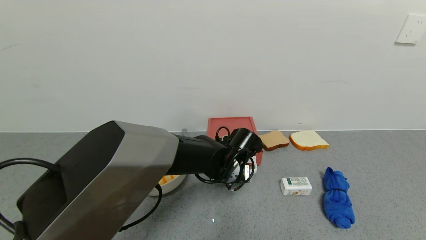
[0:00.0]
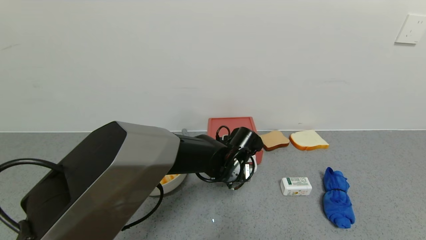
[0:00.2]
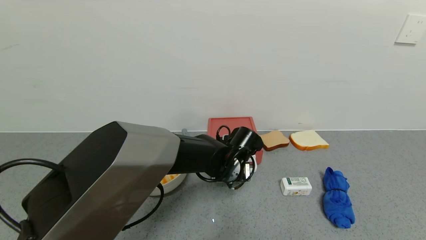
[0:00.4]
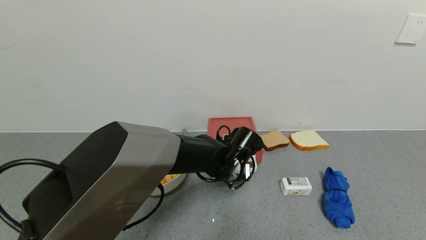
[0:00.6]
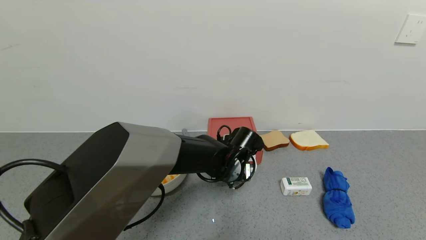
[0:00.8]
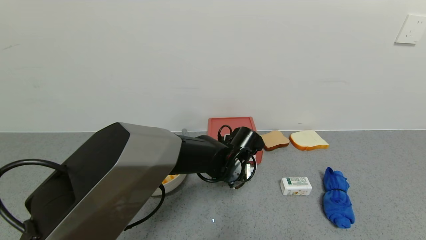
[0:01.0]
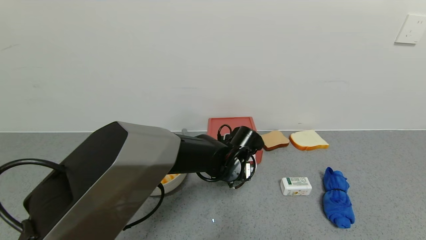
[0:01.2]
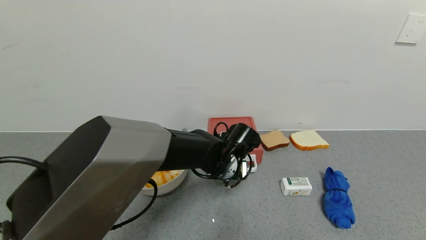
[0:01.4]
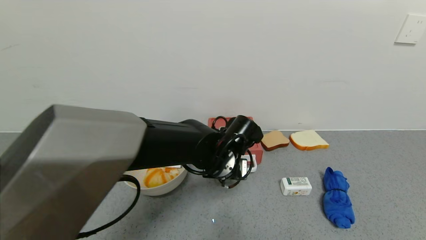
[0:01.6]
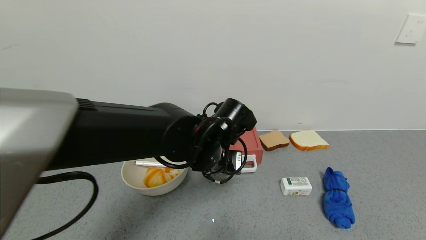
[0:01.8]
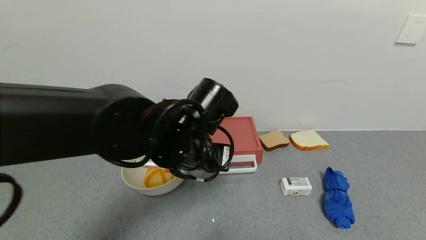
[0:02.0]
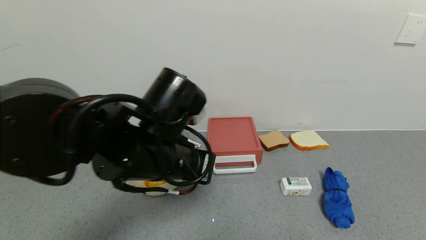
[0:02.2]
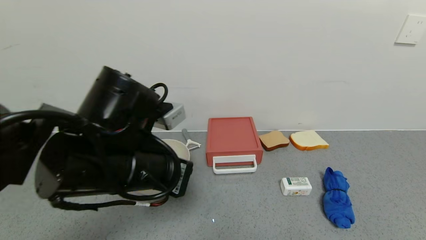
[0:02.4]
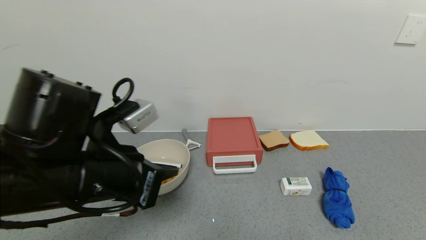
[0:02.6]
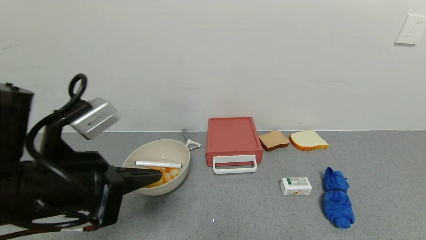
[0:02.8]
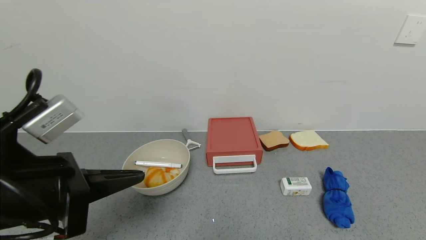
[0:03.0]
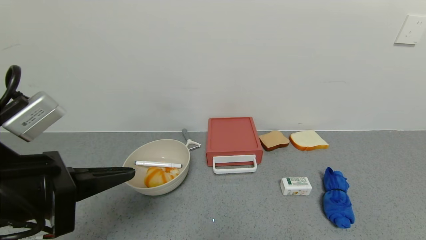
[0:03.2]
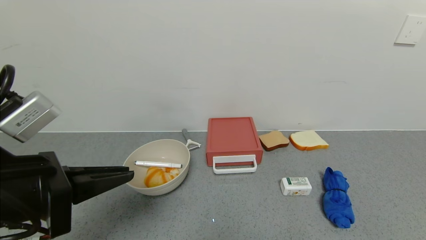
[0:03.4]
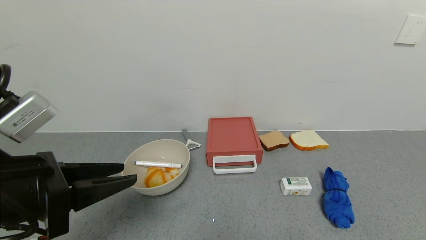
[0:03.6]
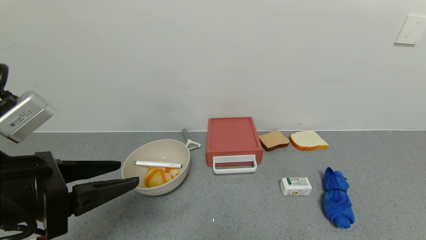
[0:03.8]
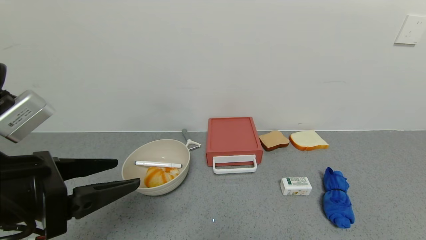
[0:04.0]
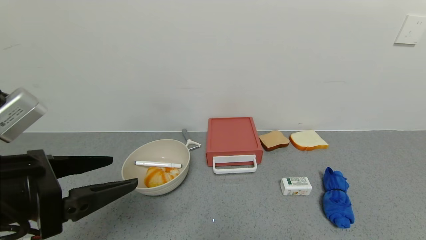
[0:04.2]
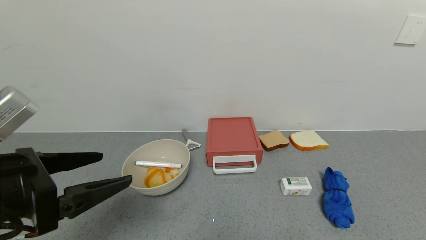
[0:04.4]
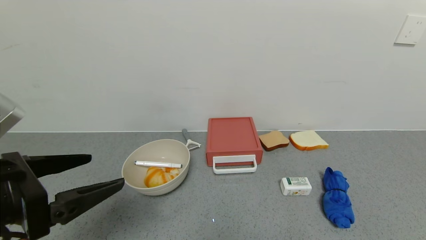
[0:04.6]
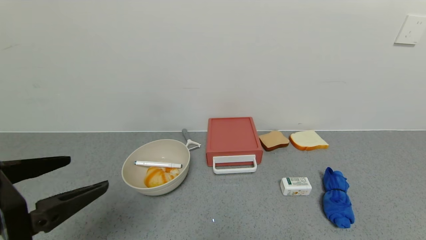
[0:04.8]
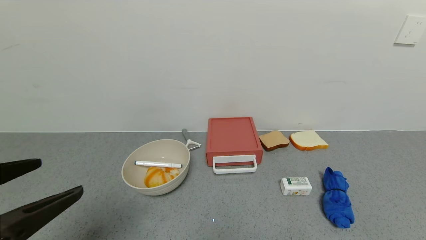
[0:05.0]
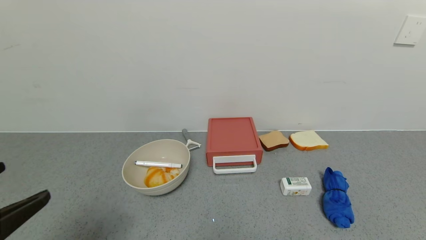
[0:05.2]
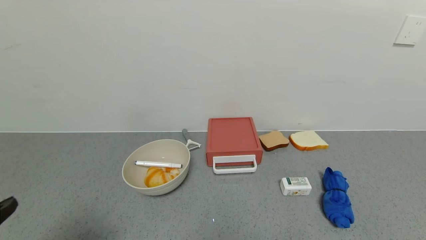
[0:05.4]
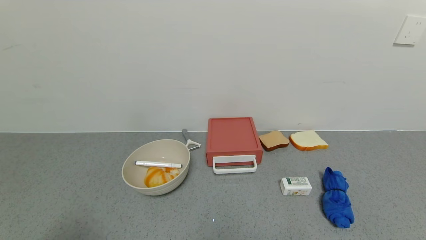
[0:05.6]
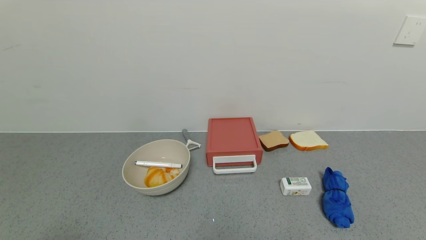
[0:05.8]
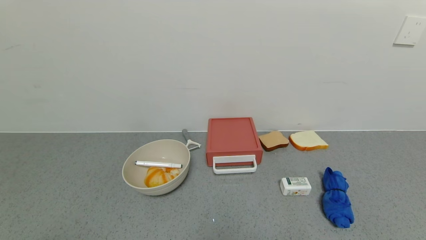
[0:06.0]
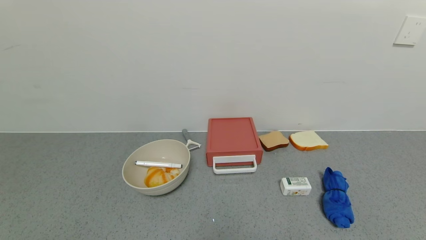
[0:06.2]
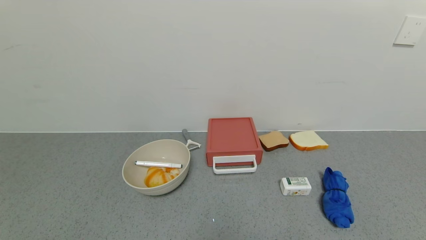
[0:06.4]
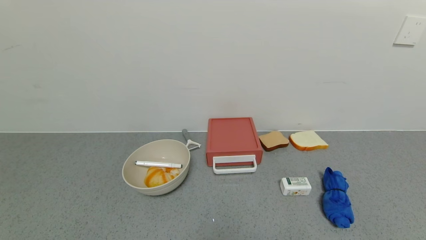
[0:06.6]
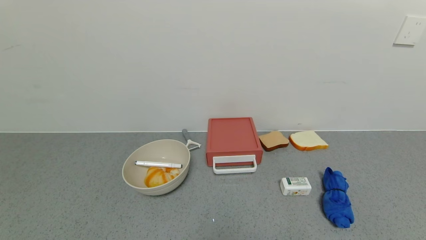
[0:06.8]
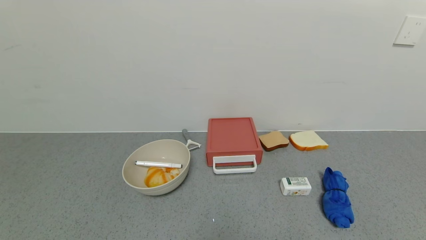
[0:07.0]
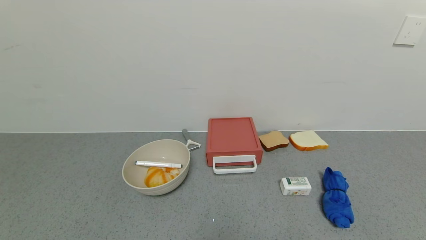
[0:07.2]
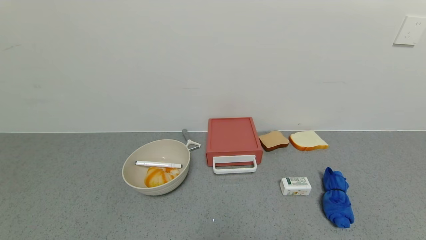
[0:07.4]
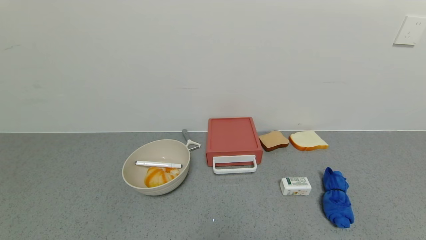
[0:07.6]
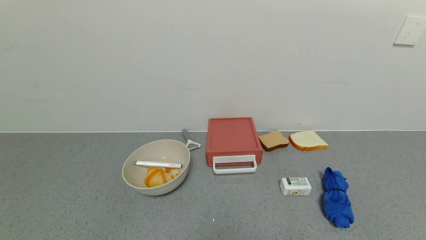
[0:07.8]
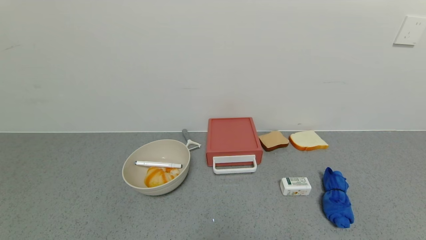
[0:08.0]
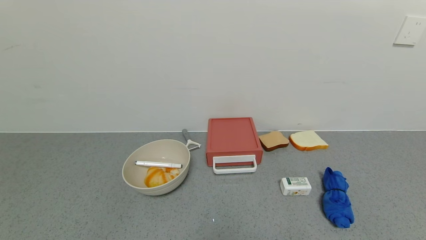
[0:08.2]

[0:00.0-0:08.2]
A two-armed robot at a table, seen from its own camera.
Task of the whole recording: use the gripper to open the drawer and close the red drawer.
Step, 0:00.0 to 0:02.0: Close the red drawer with left gripper.
0:00.0 to 0:01.6: The left gripper ends up approximately 5 cm from where it was.
0:01.6 to 0:03.2: The left gripper shifts roughly 30 cm to the left, backward and upward.
0:03.2 to 0:05.0: The left gripper heads backward, covering some 5 cm, and opens up.
0:05.0 to 0:06.6: The left gripper shifts about 15 cm backward.

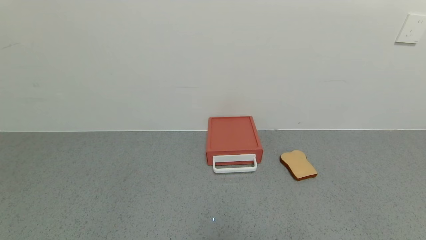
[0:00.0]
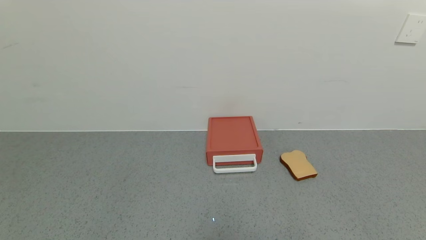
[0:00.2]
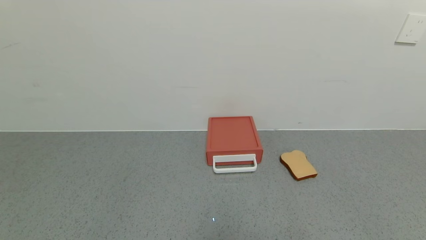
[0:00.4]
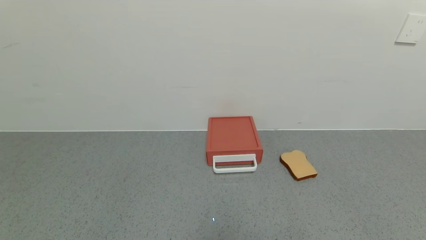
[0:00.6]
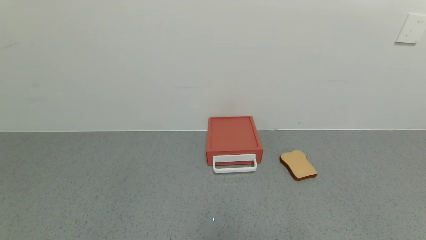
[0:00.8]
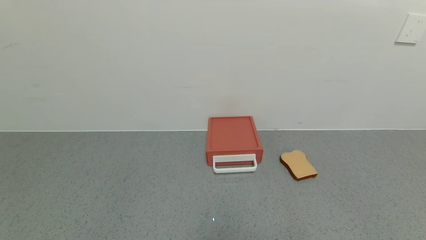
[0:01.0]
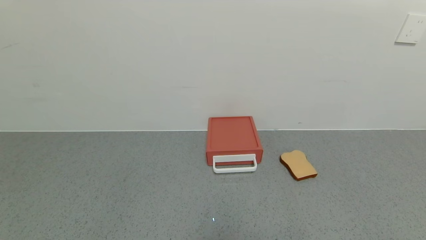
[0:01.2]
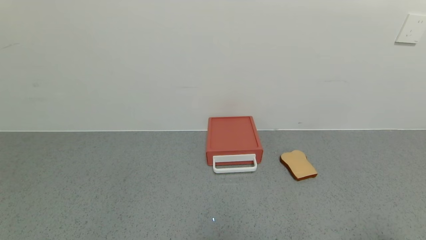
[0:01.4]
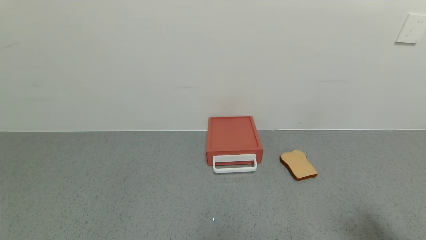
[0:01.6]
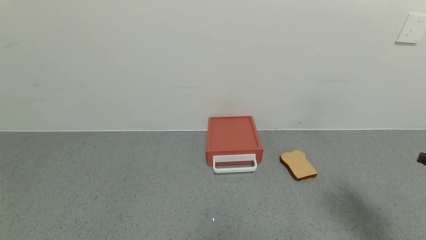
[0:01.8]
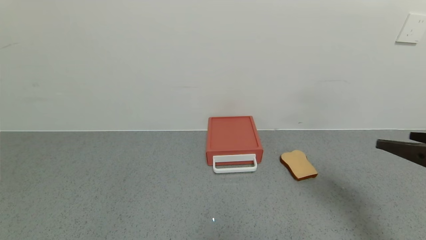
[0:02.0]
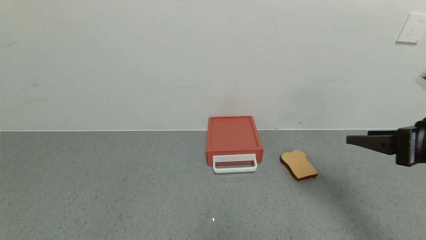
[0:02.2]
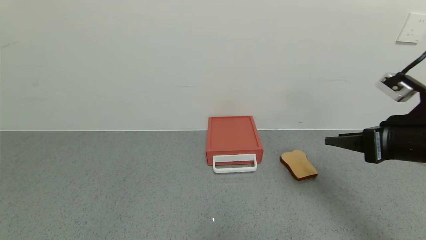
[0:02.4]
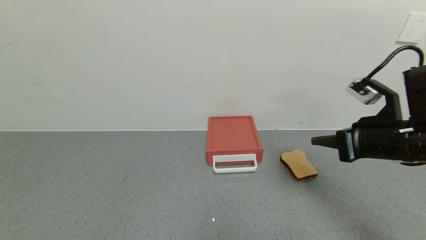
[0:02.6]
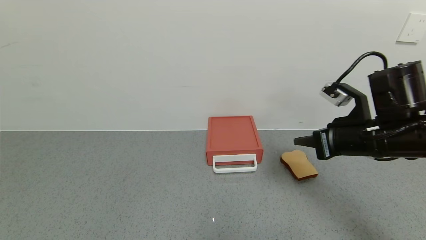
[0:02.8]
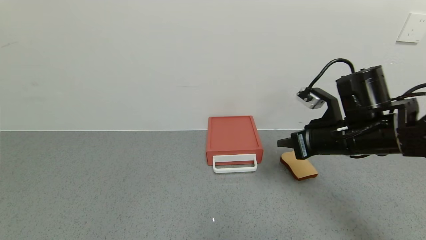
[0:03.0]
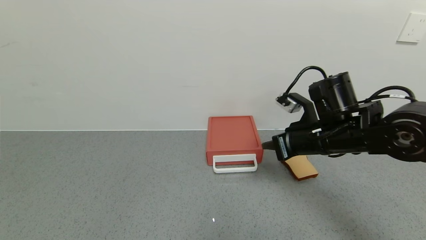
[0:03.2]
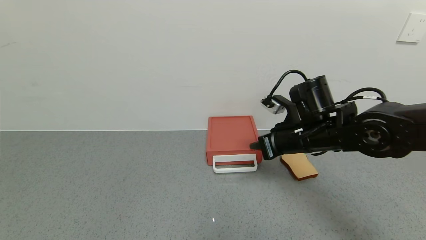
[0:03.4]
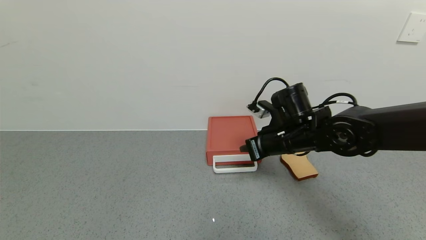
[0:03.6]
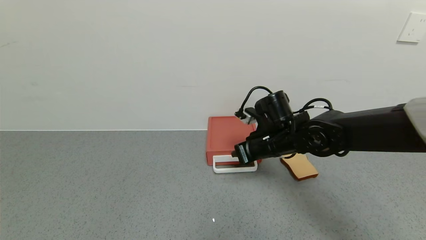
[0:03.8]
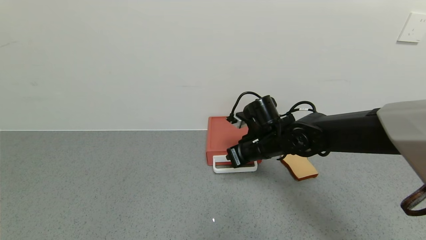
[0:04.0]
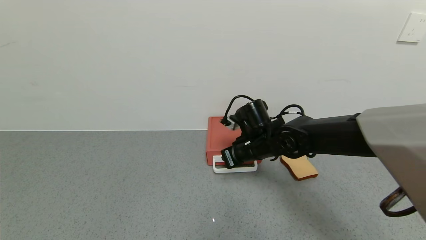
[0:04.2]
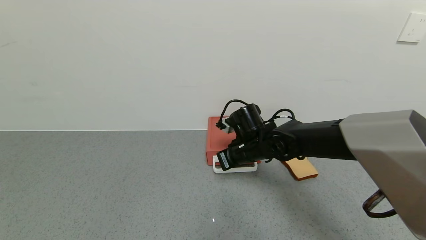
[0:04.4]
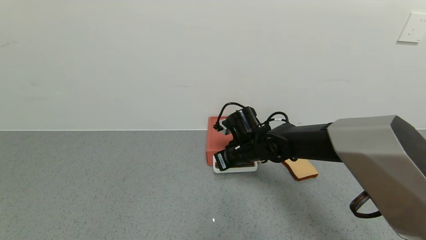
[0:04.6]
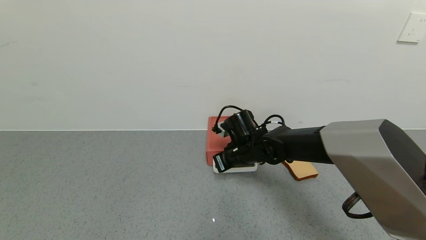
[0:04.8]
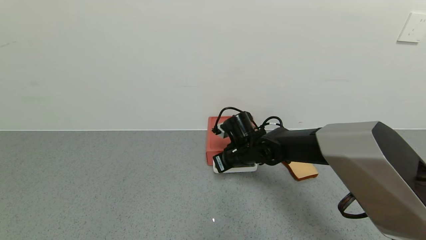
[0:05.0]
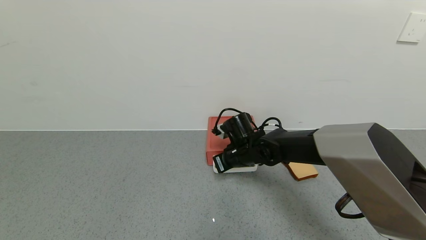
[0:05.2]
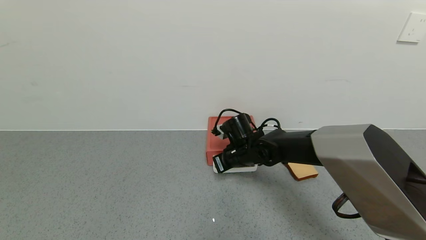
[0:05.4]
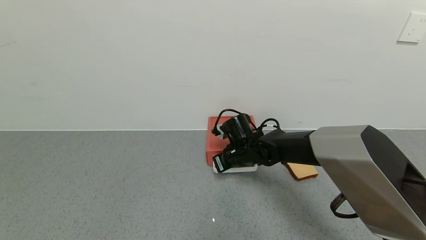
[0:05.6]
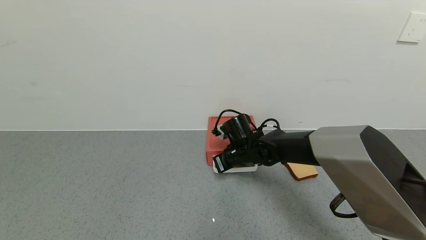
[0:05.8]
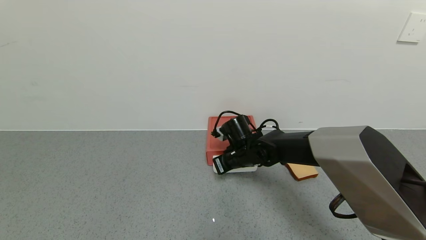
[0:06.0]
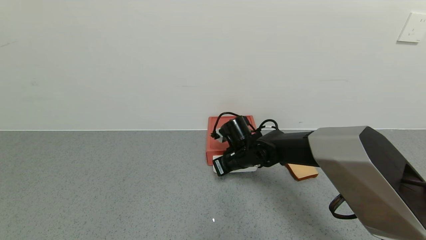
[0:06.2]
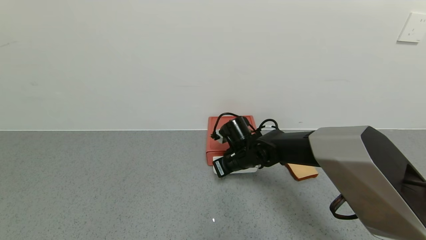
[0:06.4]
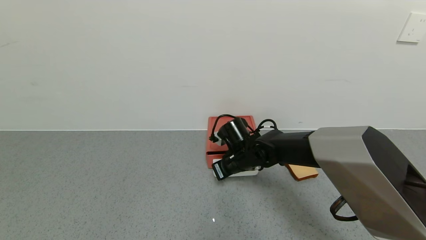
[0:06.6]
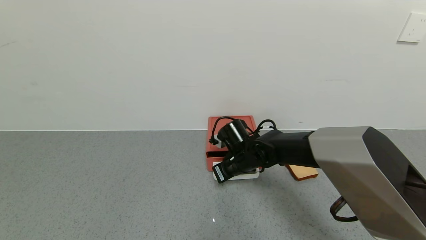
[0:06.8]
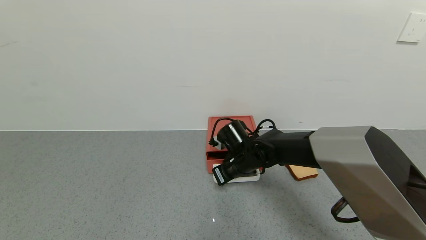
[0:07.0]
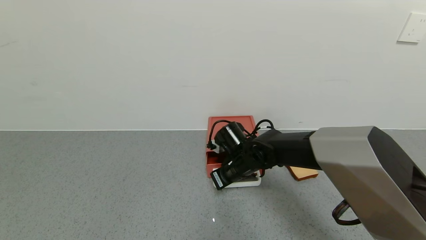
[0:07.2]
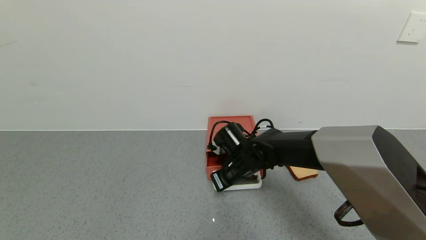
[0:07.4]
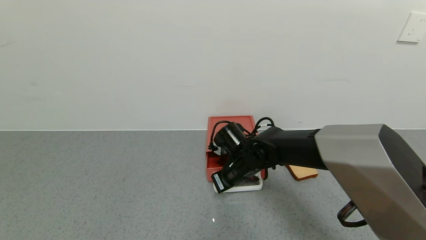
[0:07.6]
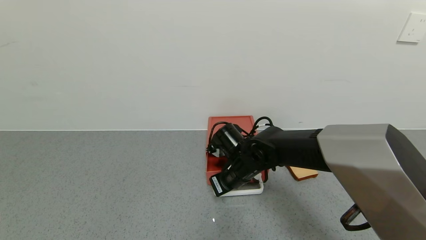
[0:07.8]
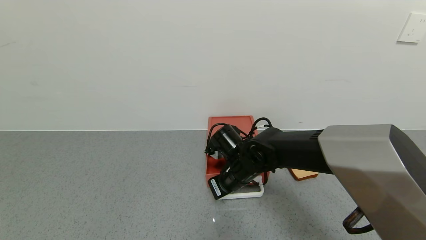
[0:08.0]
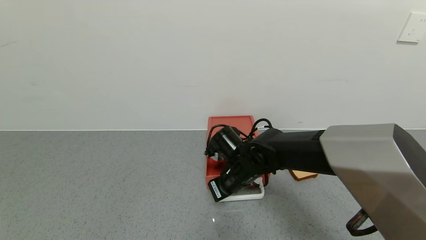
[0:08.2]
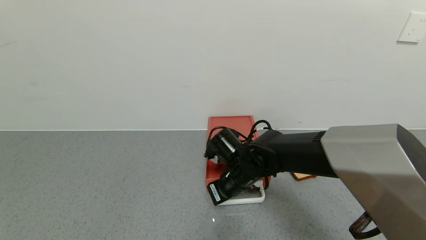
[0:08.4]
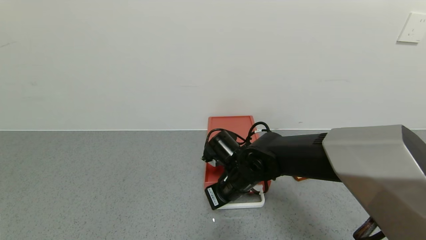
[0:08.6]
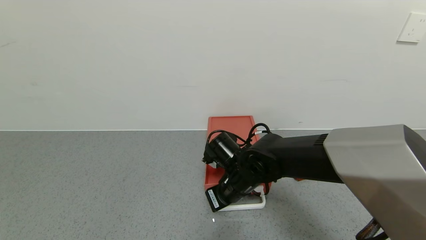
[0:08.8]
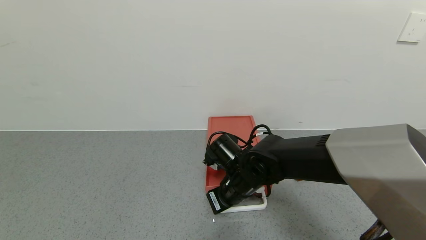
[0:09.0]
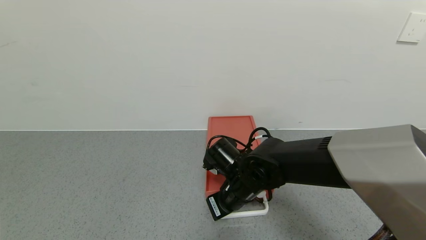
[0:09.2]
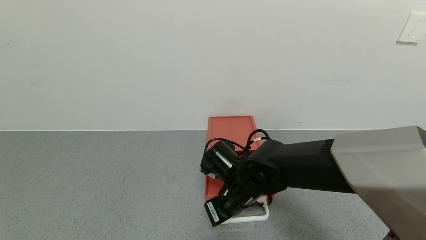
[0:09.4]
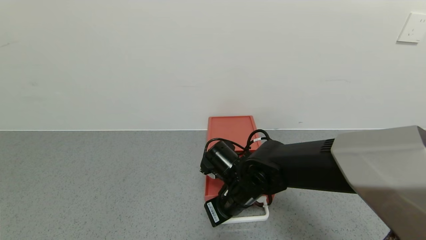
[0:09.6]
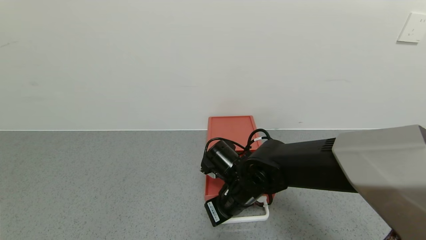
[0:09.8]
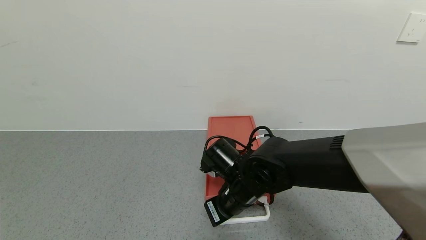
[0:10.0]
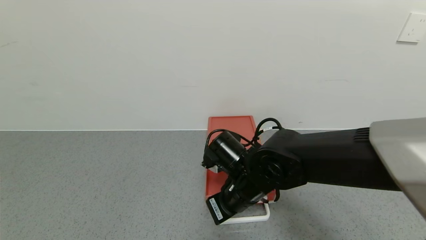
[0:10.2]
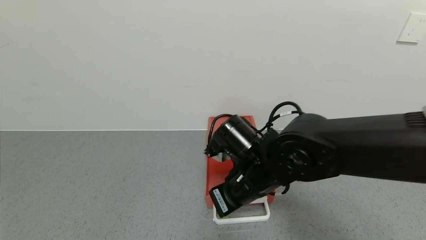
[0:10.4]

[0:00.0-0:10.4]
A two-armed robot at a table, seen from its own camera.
Task of the whole recording: use the gripper to open the drawer and close the red drawer.
0:01.4 to 0:03.0: The right gripper travels forward and to the left by approximately 30 cm, and closes its fingers.
0:03.0 to 0:04.4: The right gripper moves to the left, downward and forward, about 20 cm.
0:04.4 to 0:07.4: There are only small adjustments of the grippers.
0:07.4 to 0:09.0: The right gripper moves backward, about 5 cm.
0:09.0 to 0:10.4: The right gripper is displaced upward by roughly 5 cm.
